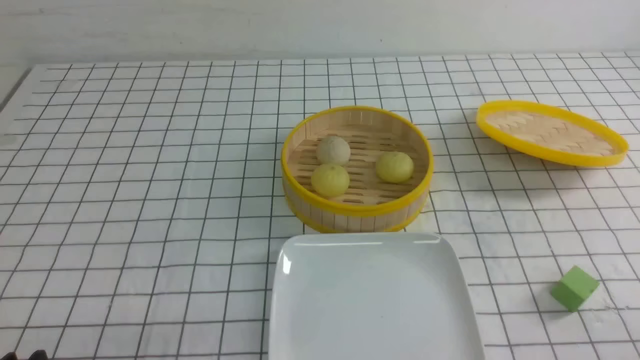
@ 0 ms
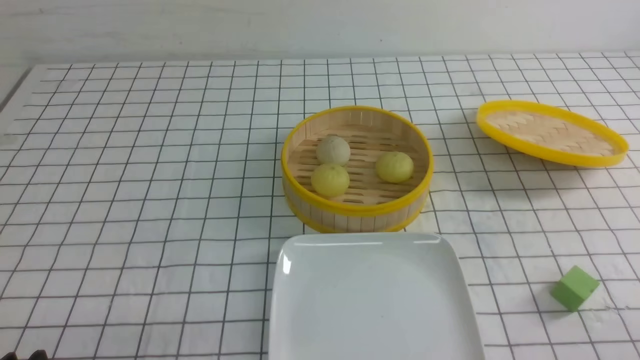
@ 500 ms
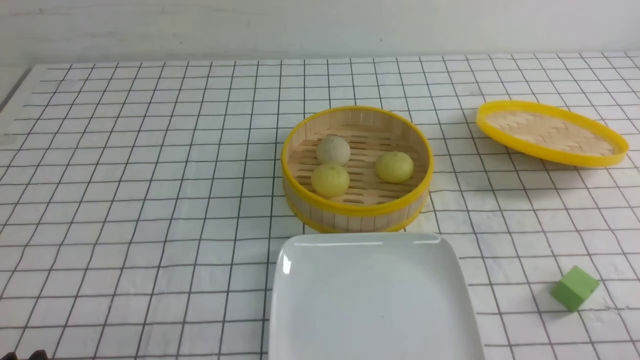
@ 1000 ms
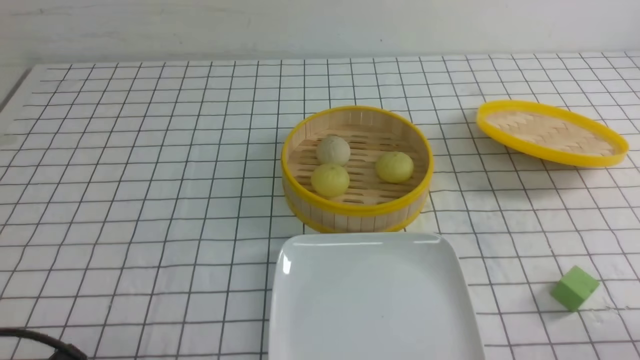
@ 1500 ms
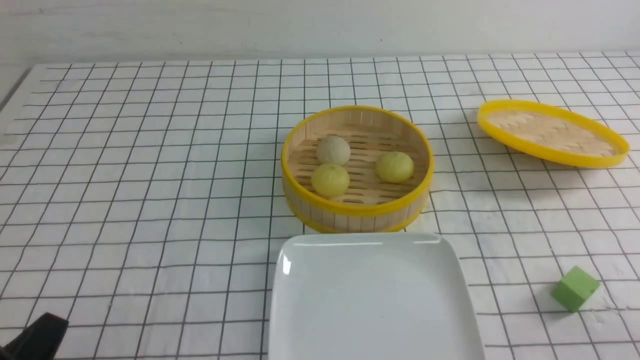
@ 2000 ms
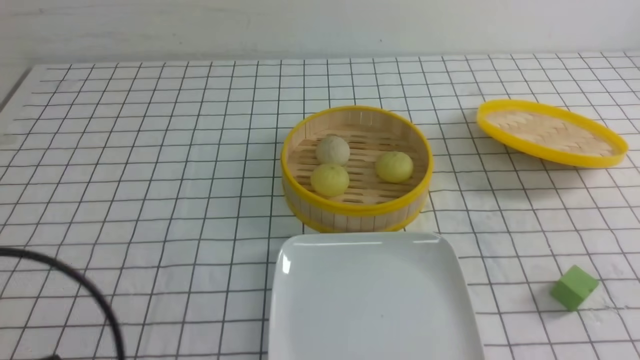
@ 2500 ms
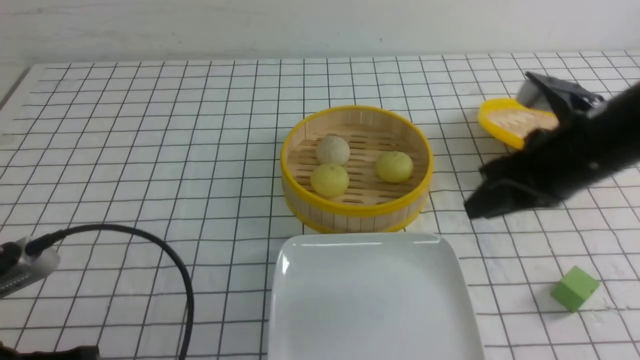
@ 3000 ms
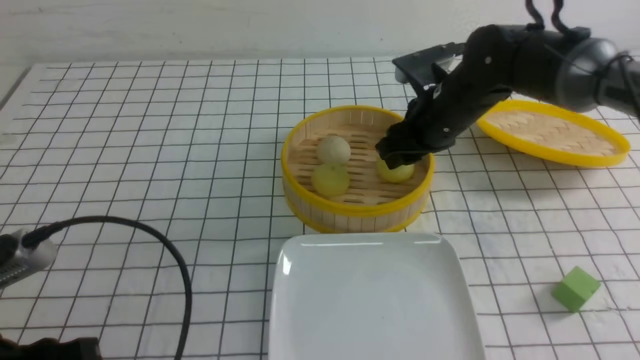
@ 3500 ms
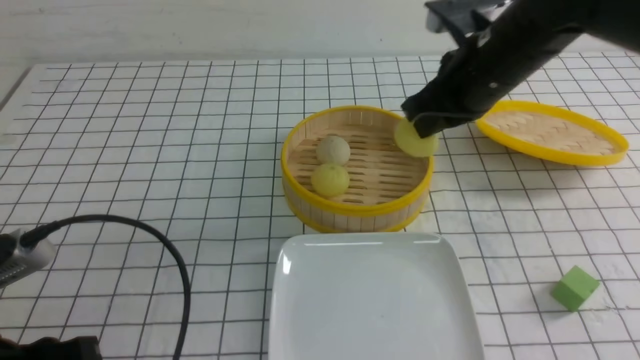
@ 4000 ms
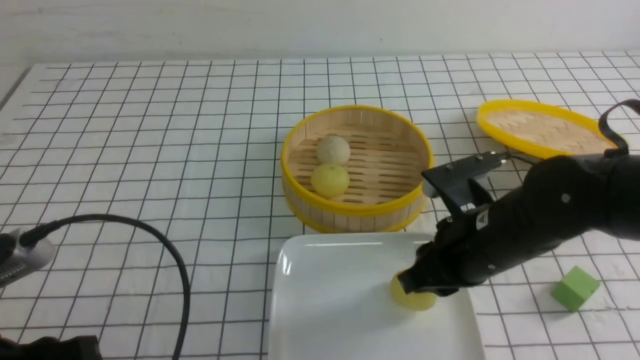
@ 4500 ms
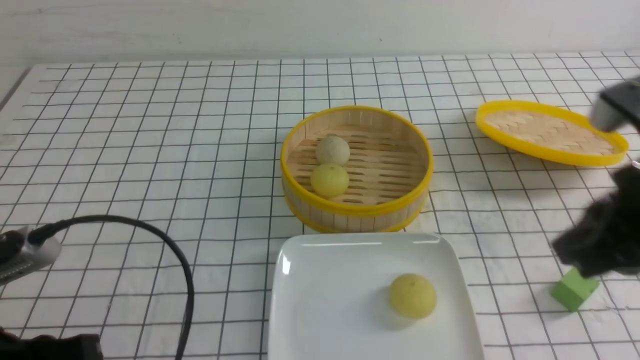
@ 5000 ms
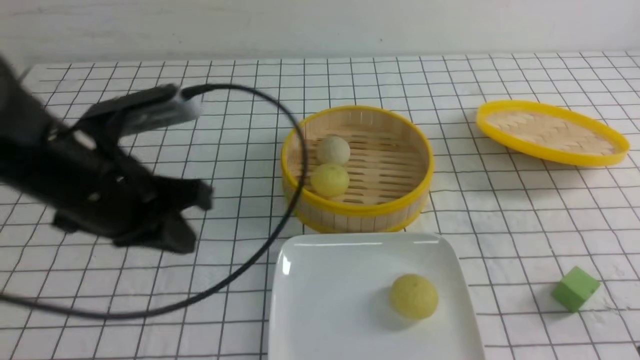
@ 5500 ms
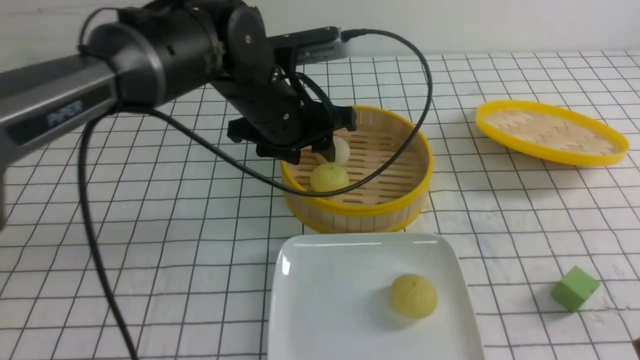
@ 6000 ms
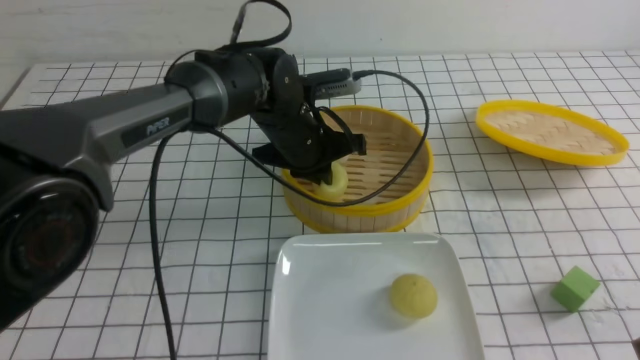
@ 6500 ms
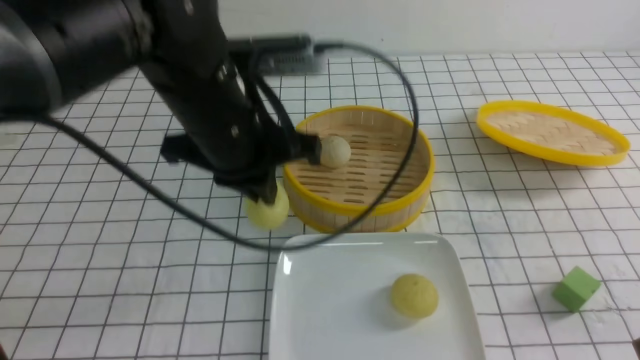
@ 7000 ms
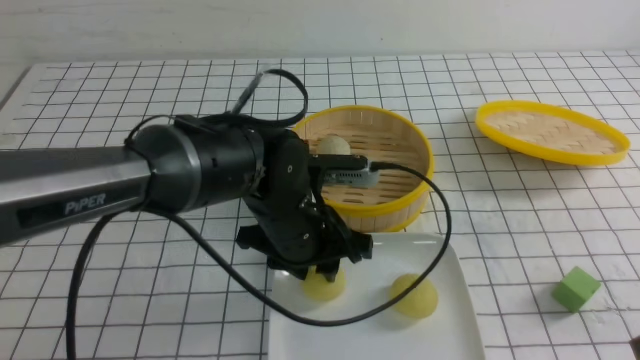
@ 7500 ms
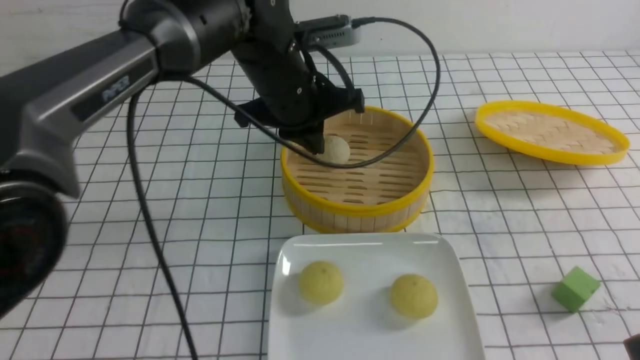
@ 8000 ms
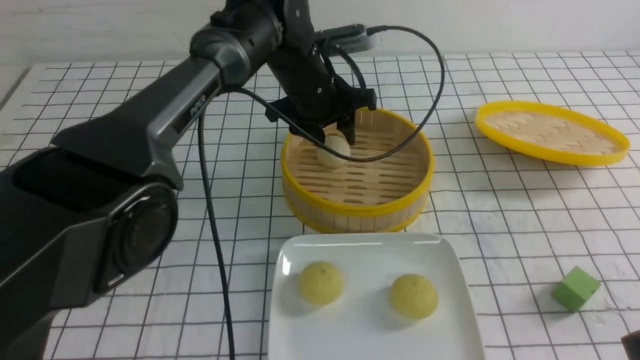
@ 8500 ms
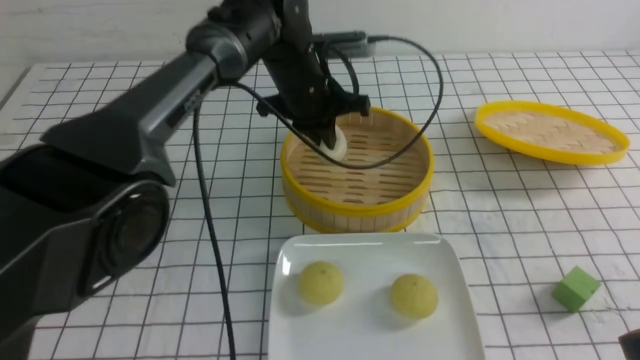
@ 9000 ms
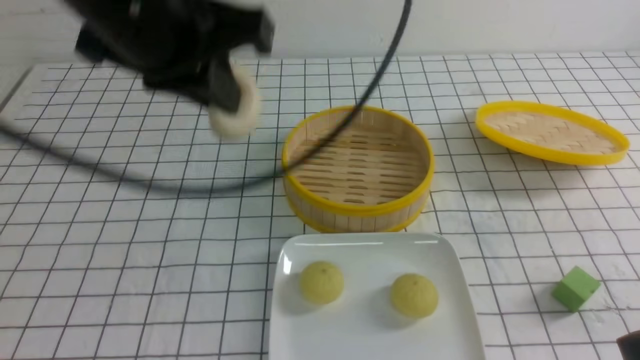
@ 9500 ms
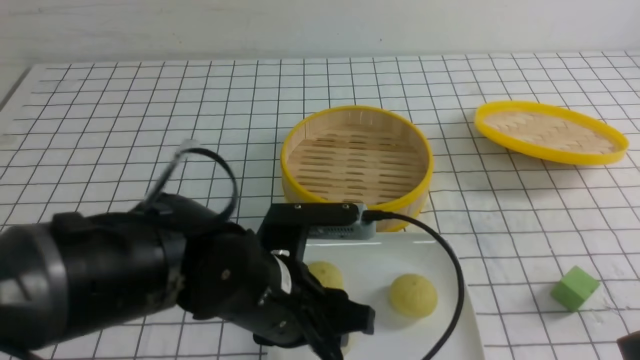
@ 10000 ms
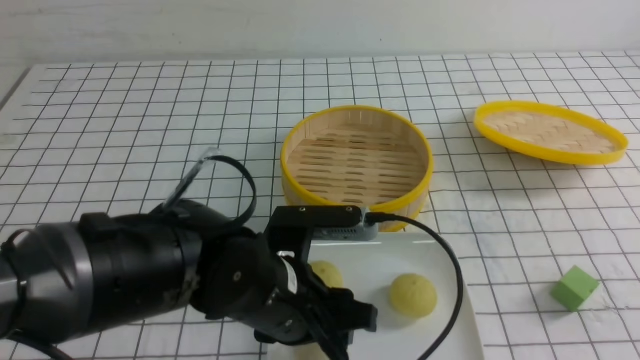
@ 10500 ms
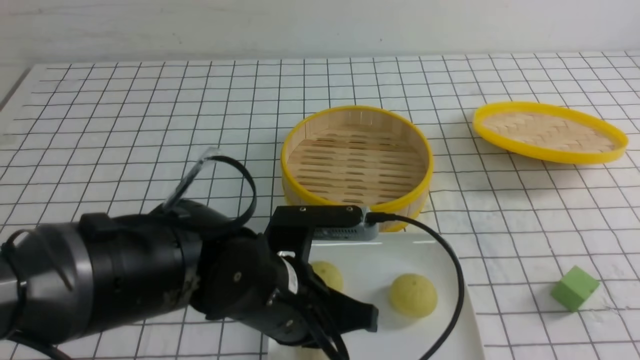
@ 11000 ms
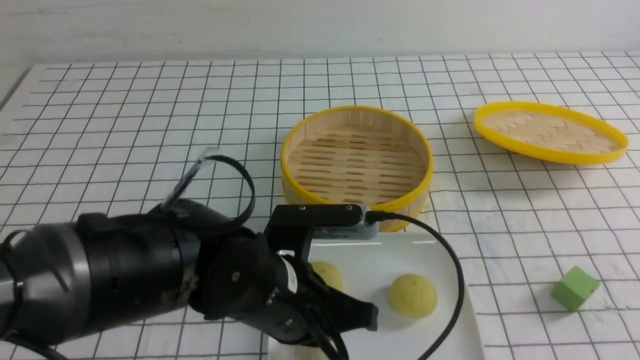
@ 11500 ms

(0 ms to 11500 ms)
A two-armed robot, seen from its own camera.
Step, 0 ms - 3500 ms: use the right arm to grab the steamed stuffed bun that is closest to it.
Step, 4000 ms - 4500 ms: use the right arm to put the steamed stuffed bun into the plate.
Step, 5000 ms - 6500 ms: use the left arm to grab the steamed stuffed bun that is closest to it.
Step, 7000 ms - 7500 ms: use the left arm to put the steamed stuffed bun into the plate.
Step, 8000 ms - 8500 ms: use the left arm to grab the steamed stuffed bun that is closest to it.
Step, 9000 ms - 10000 ms: use the left arm to put the steamed stuffed bun into the plate.
2000 ms - 4000 ms: The left gripper heads upward, covering roughly 5 cm, and closes and opens again. Meanwhile the right gripper is displaced forward and to the left by roughly 35 cm, and opens, then closes again.
4000 ms - 6000 ms: The left gripper travels forward and to the right by some 35 cm, and closes, then reopens. The right gripper shifts about 30 cm backward and to the right, and opens, then closes again.
6000 ms - 7500 ms: The left gripper shifts some 10 cm backward, and closes, then reopens.
7500 ms - 9500 ms: The left gripper travels upward and to the left by roughly 20 cm, moves roughly 15 cm forward and comes back, and closes up.
9500 ms - 11500 ms: The right gripper shifts approximately 5 cm backward. Meanwhile the left gripper goes approximately 20 cm downward and backward, and opens and closes again.

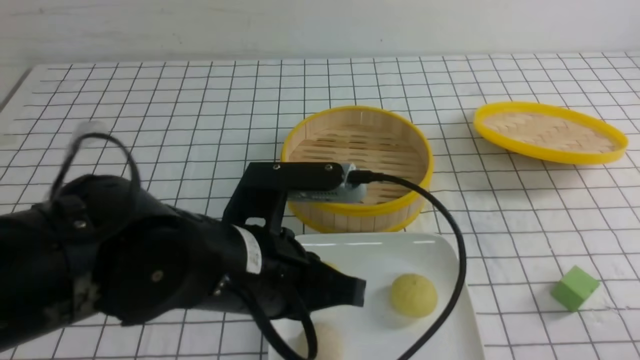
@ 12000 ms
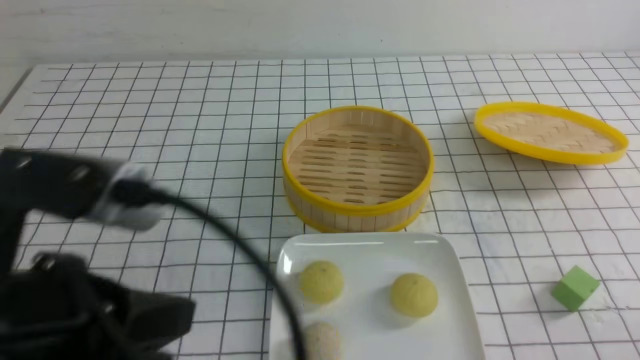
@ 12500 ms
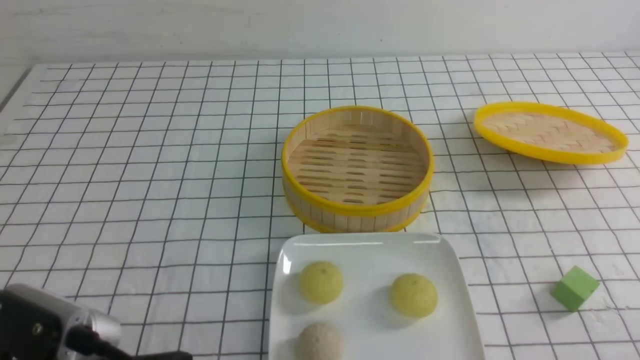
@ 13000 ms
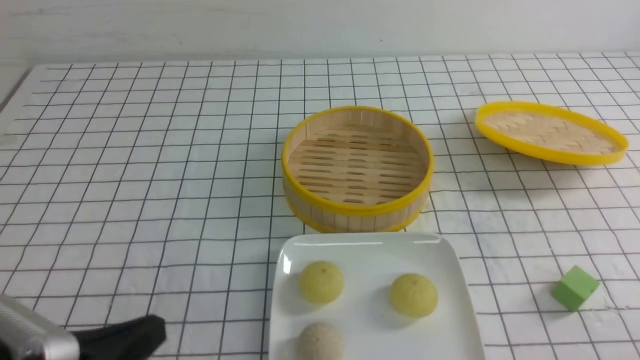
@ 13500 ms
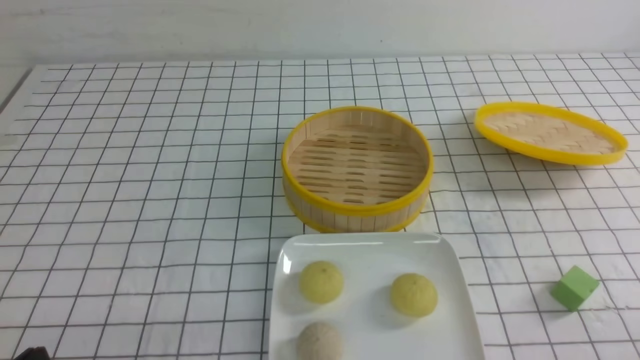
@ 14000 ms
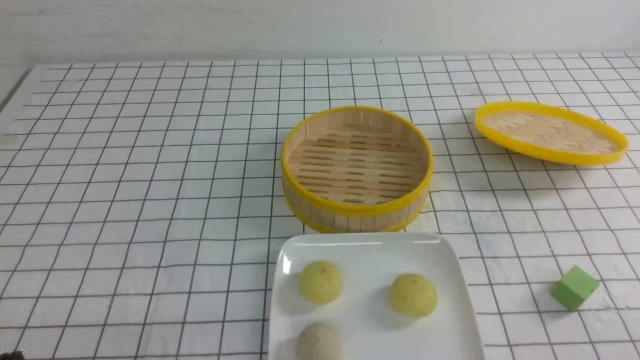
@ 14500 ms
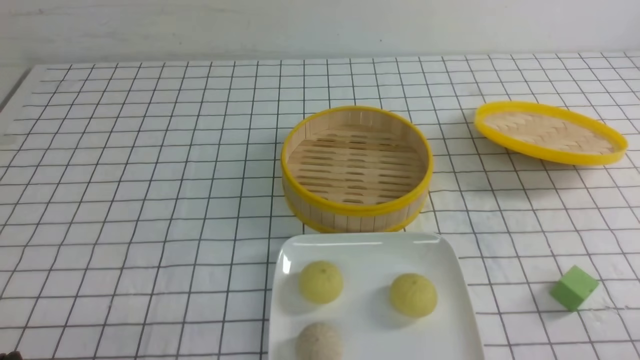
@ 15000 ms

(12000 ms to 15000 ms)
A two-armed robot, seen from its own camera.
12000 ms - 13500 ms: The left gripper is displaced to the left and backward by about 20 cm.
13500 ms - 15000 ms: The left gripper goes approximately 10 cm downward and to the left.

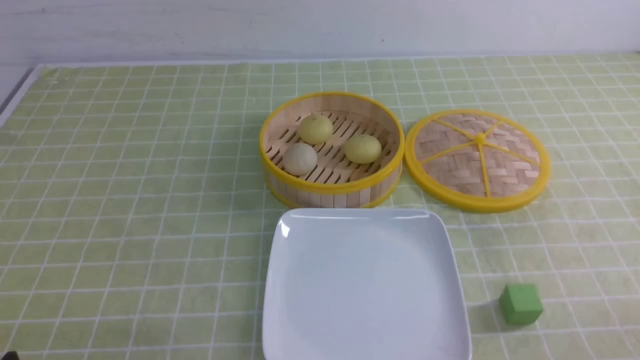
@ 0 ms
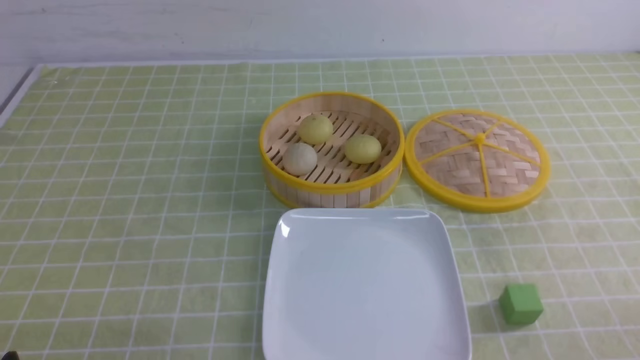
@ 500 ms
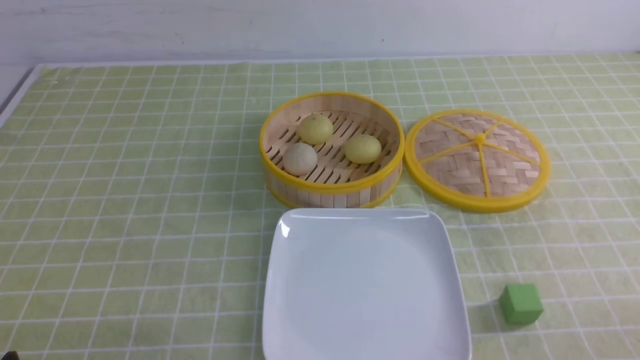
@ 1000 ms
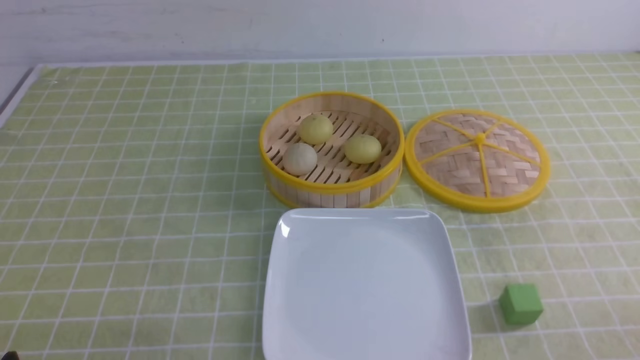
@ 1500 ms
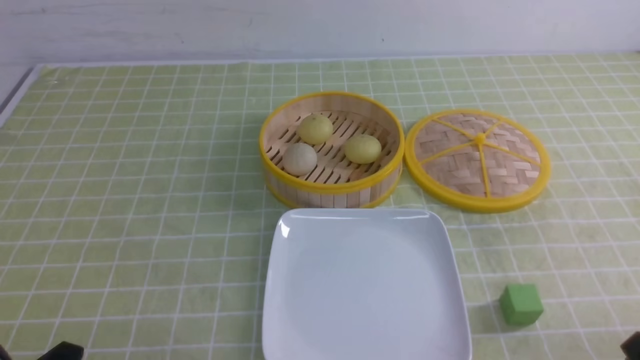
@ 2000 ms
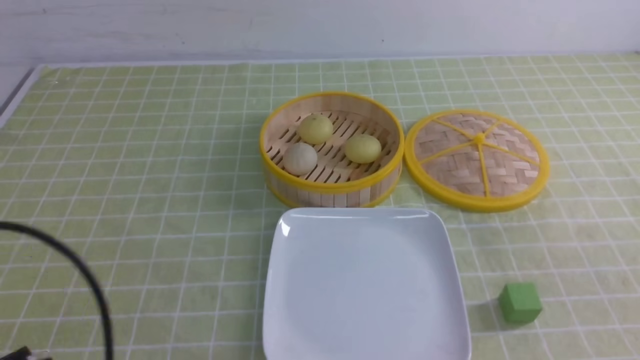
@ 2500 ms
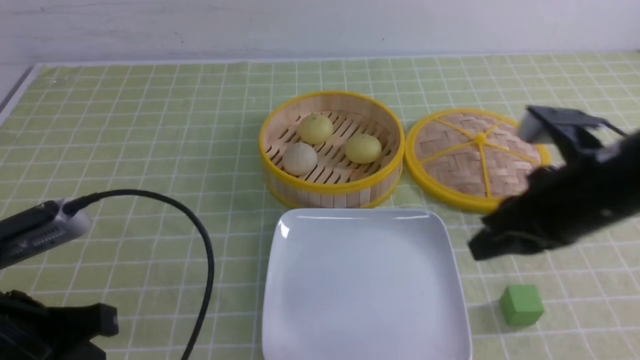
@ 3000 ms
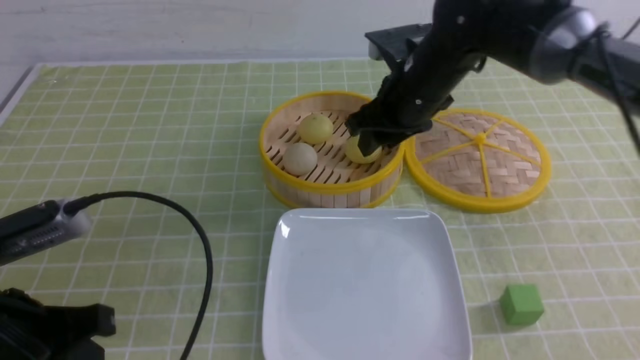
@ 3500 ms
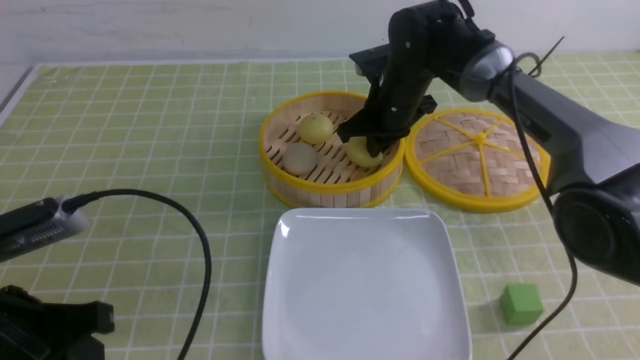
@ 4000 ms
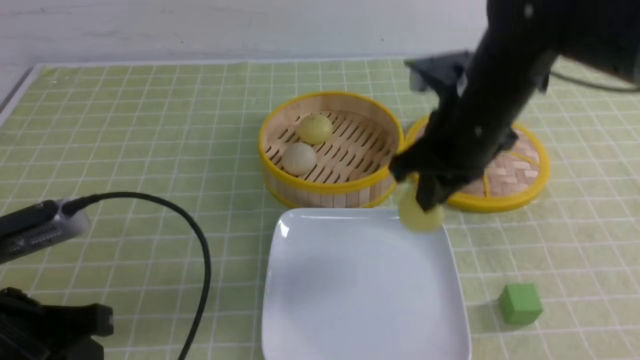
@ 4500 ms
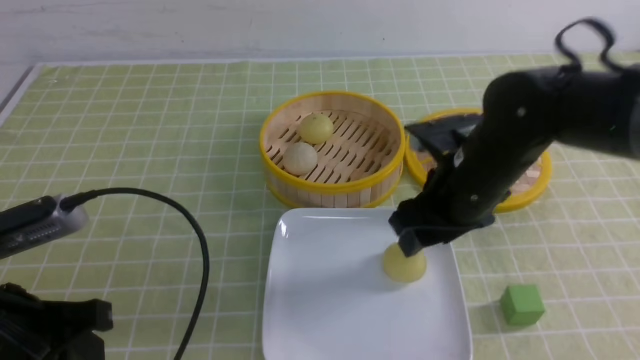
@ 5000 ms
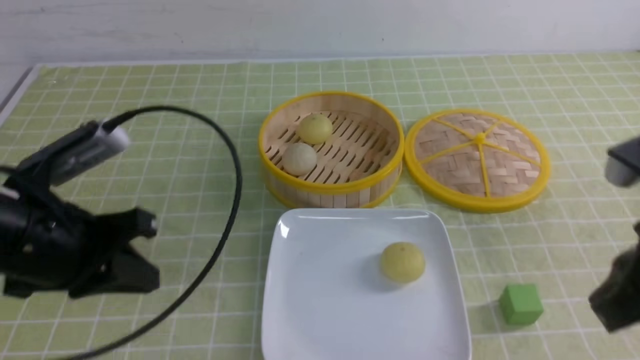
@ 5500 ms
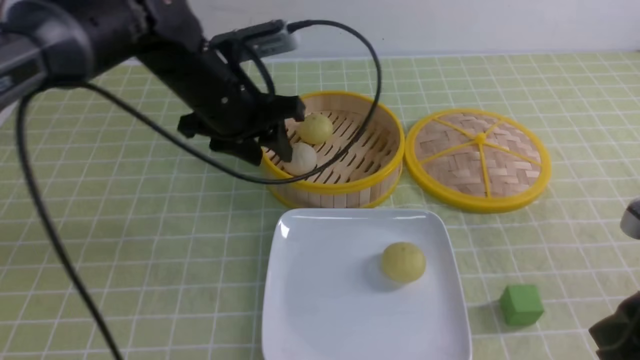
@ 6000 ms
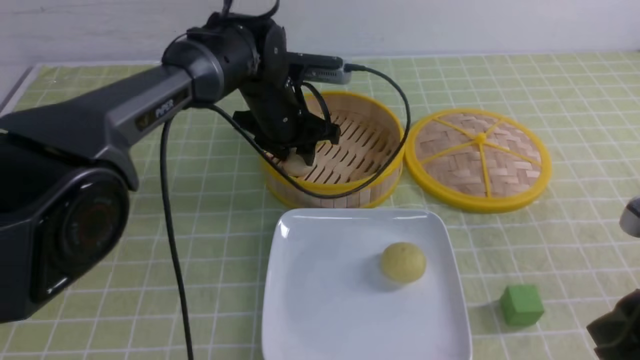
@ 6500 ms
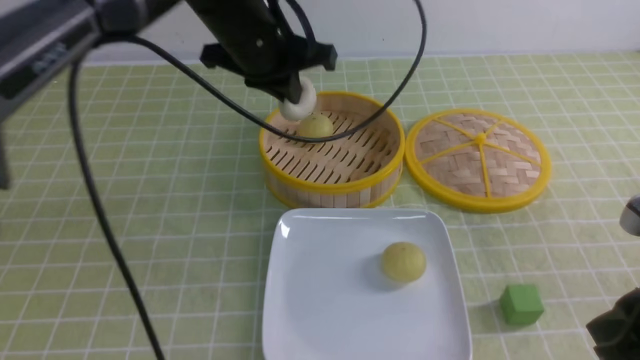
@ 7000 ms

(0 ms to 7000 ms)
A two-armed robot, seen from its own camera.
Step, 0 ms - 3500 ms: use the right arm to grab the steamed stuffed bun that is closest to it.
Step, 5000 ms - 6500 ms: use the left arm to grab the steamed stuffed bun that is closest to it.
2000 ms - 3500 ms: The right gripper travels forward and to the left by some 40 cm, and closes and opens again. The left gripper heads forward and upward, covering roughly 10 cm.
3500 ms - 5000 ms: The right gripper travels backward by approximately 15 cm, and closes, then opens again.
5000 ms - 7000 ms: The right gripper heads backward and to the right, covering about 20 cm, and closes. Meanwhile the left gripper goes approximately 30 cm forward and to the right, and closes up.
